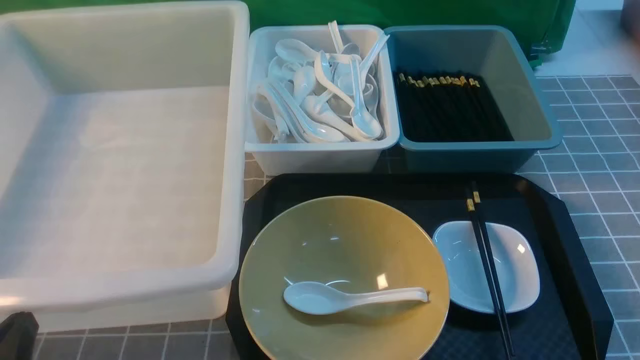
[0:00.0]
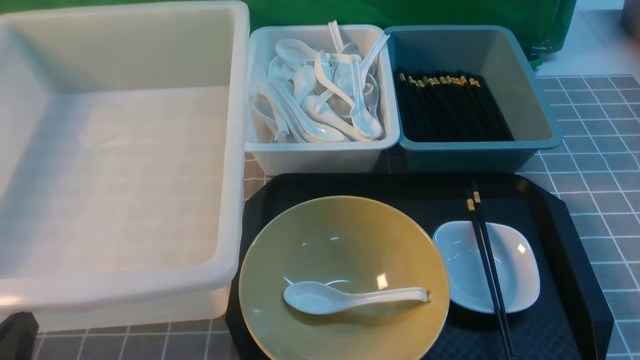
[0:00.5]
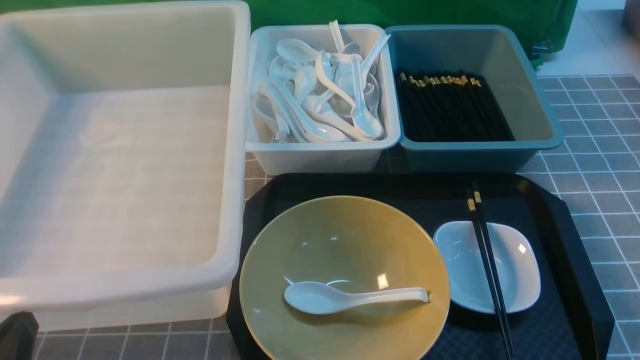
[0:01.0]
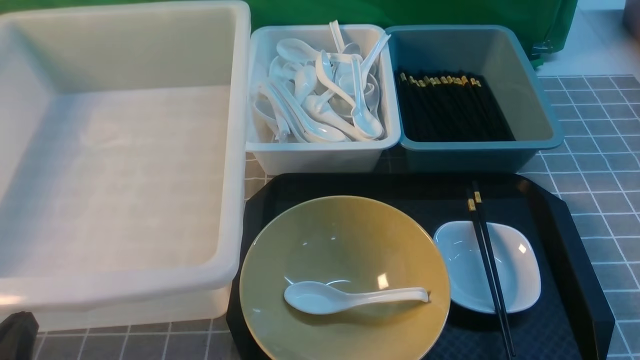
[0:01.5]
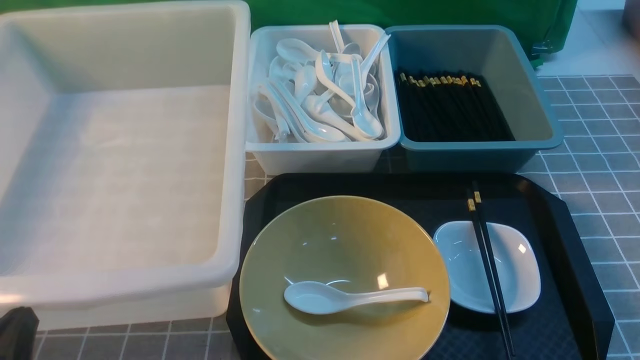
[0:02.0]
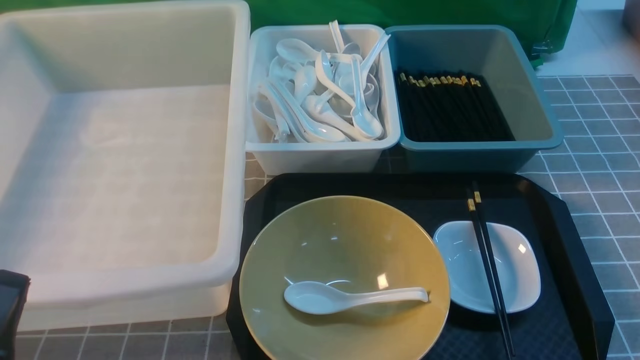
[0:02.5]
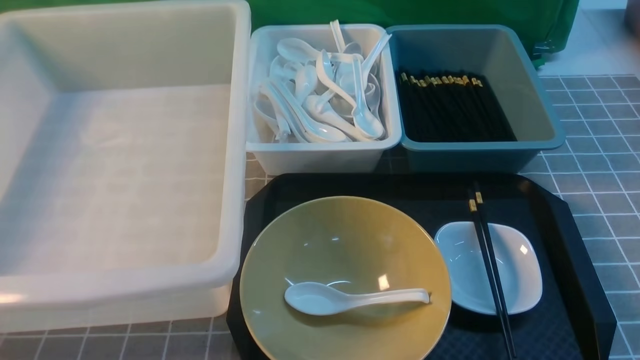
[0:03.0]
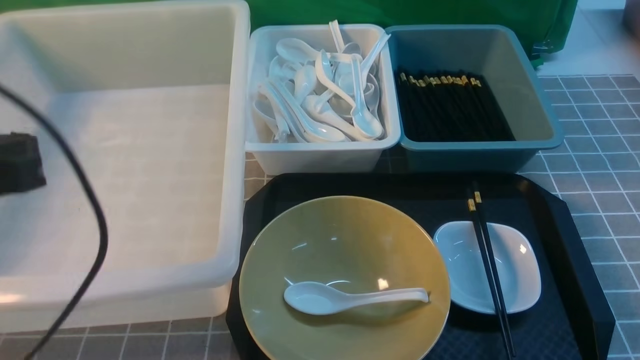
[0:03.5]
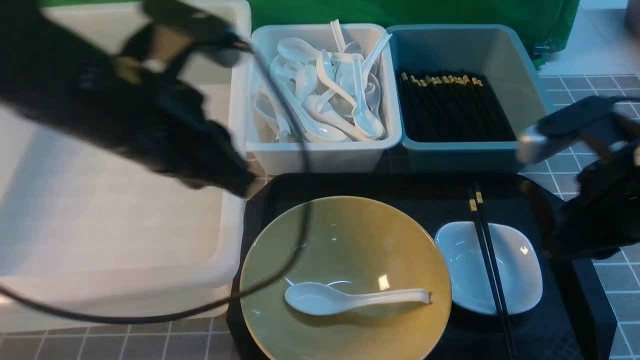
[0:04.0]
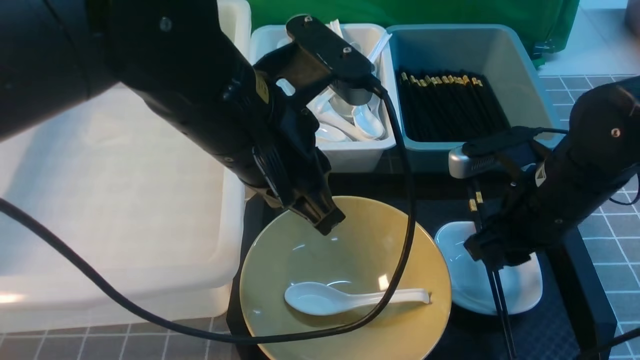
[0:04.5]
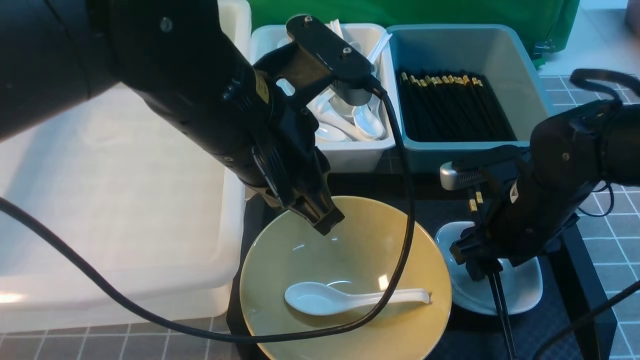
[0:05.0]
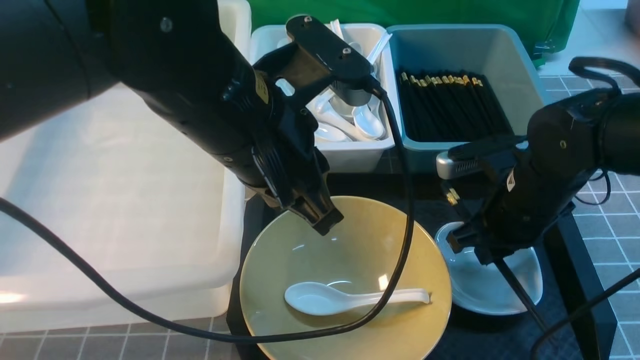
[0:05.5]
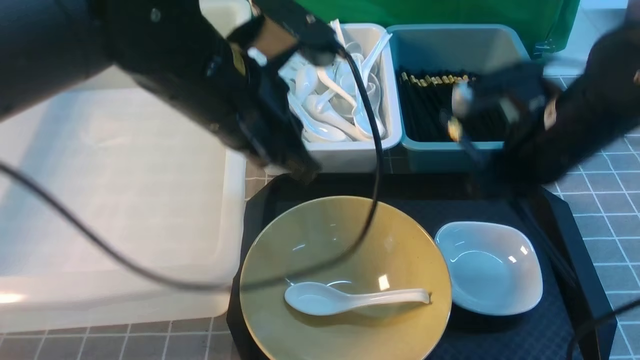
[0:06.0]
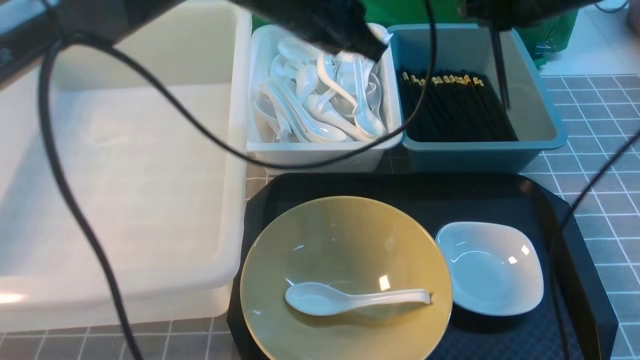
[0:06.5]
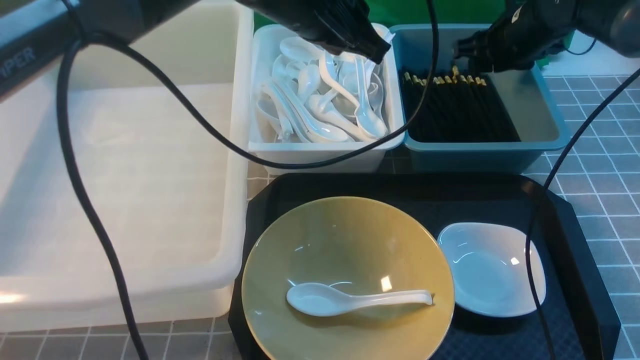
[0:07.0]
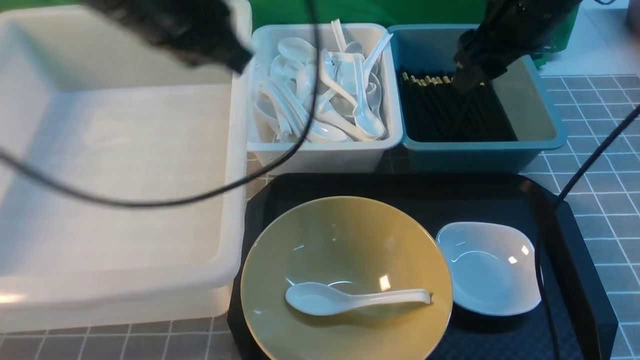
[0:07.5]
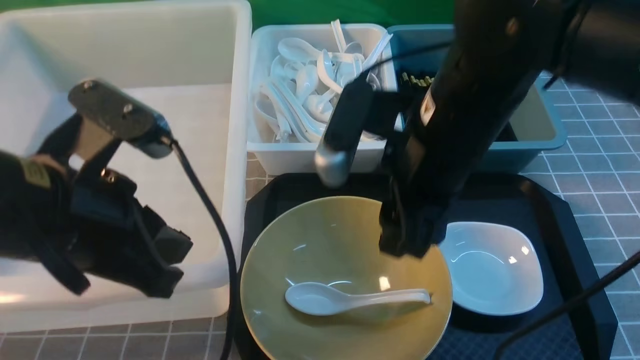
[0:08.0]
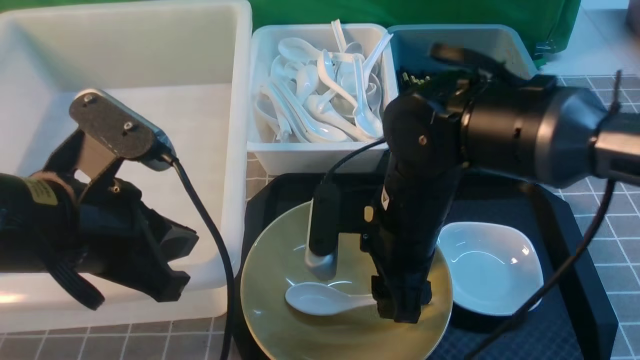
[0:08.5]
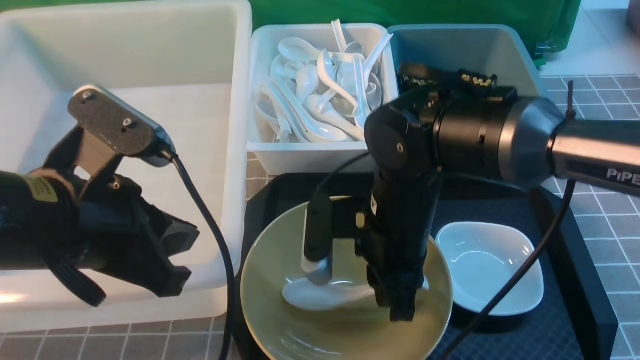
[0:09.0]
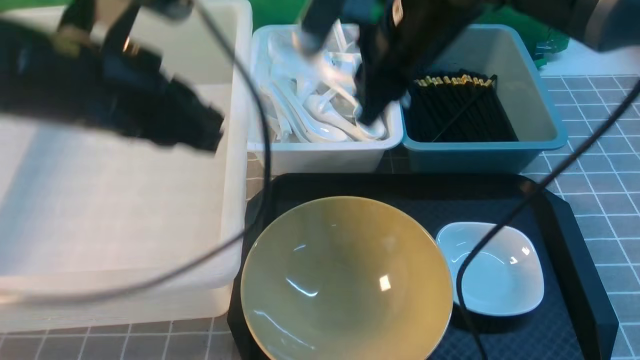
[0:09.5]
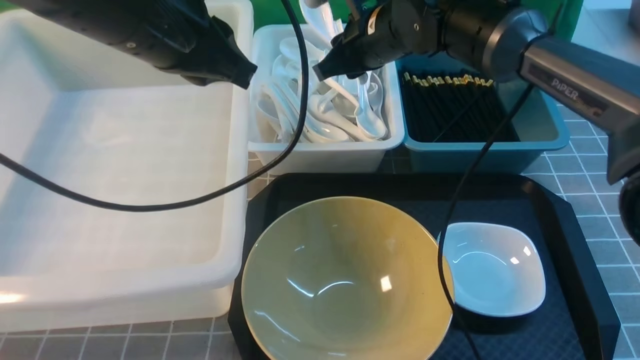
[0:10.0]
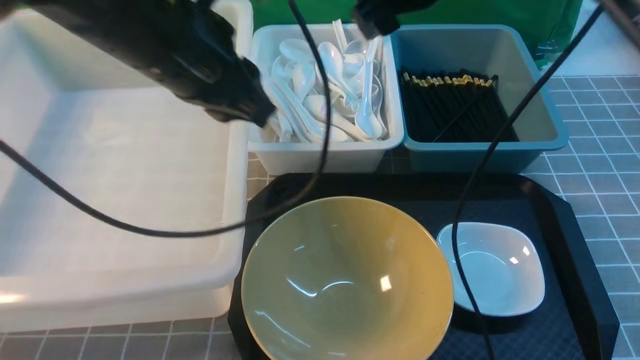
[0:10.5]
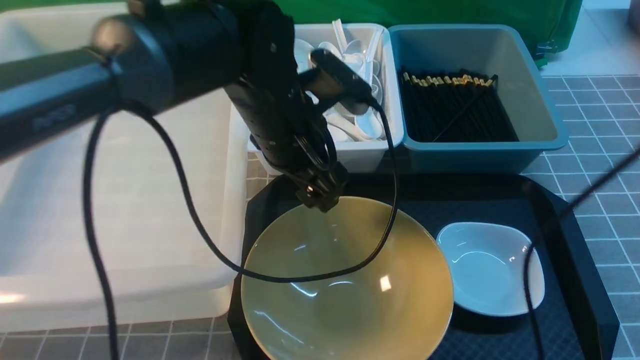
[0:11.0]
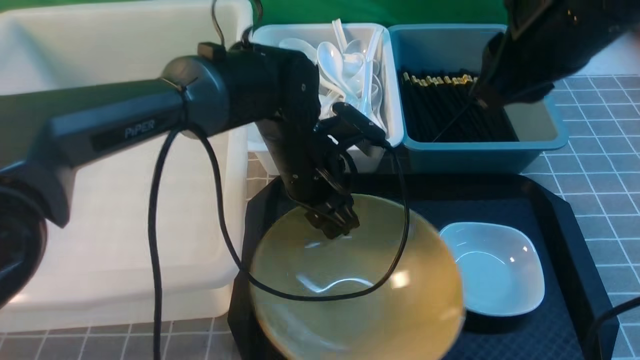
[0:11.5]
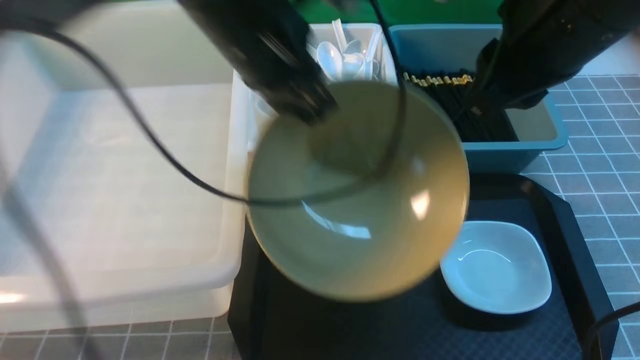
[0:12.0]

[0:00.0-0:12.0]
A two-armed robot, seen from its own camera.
Task of the whole recording: on grey table put chopsticks spoon bowls plates into blue grey white boxes.
Step, 0:00.0 to 0:05.5: use the right arm to grab the chopsticks.
Step, 0:06.0 to 0:07.0: use the right arm to put the chopsticks into the small storage box on the right.
Step, 0:07.5 to 0:09.0: use the right arm to grab the soup spoon in the middle.
Step, 0:09.5 to 0:10.0: use the right arm to put the soup spoon into the small storage box in the middle.
Step, 0:10.5 to 0:11.5: use the left arm to grab the yellow noodle bowl on the left.
0:02.0 to 0:04.0: The left gripper heads forward, upward and to the right, covering approximately 30 cm, while the right gripper moves forward, upward and to the left, roughly 25 cm, and closes up.
0:04.0 to 0:06.0: The left gripper travels to the right by roughly 5 cm, while the right gripper travels forward by some 10 cm, travels downward and back again, approximately 10 cm each way, and opens, then closes again.
0:06.0 to 0:08.0: The right gripper travels to the left by approximately 10 cm, goes forward and returns, about 15 cm each way, and opens its fingers. The left gripper moves to the left and backward, some 15 cm.
0:08.0 to 0:10.0: The right gripper moves forward, approximately 20 cm, and closes, then opens again. Meanwhile the left gripper heads forward and upward, covering about 15 cm.
0:10.0 to 0:12.0: The left gripper goes downward and returns, some 15 cm each way, and opens and closes again. Meanwhile the right gripper travels backward and upward by approximately 20 cm.

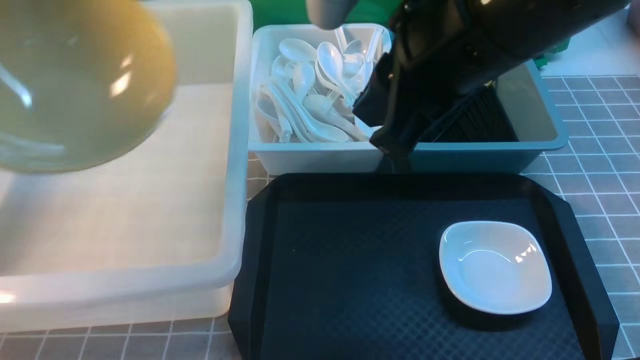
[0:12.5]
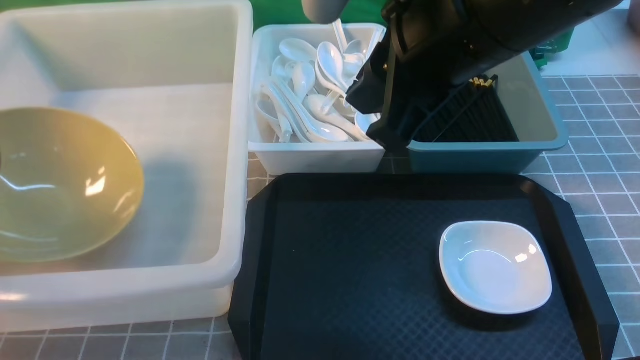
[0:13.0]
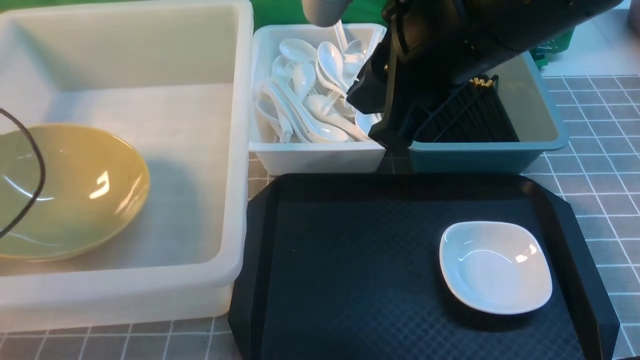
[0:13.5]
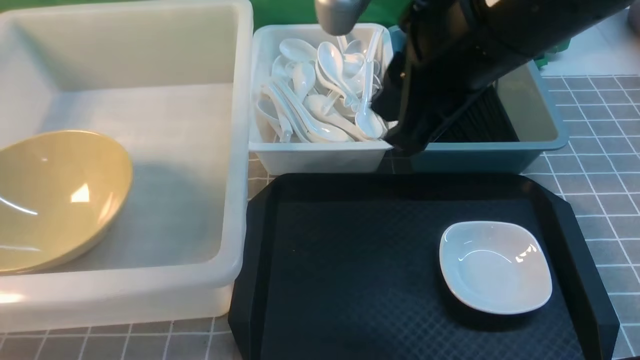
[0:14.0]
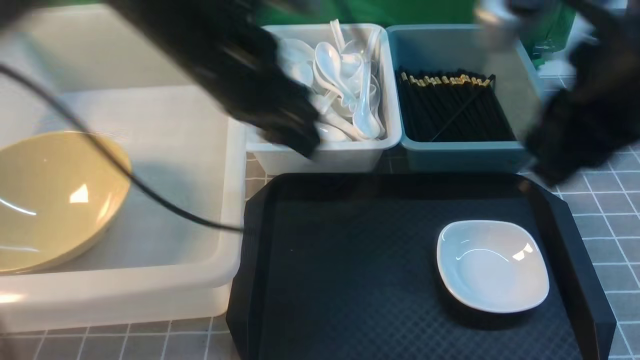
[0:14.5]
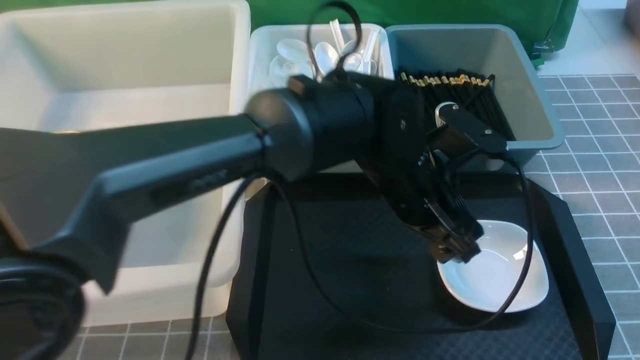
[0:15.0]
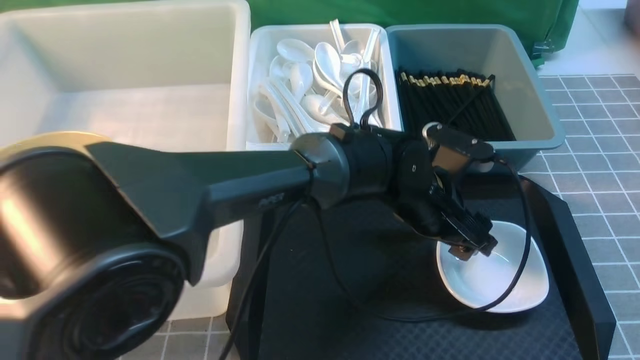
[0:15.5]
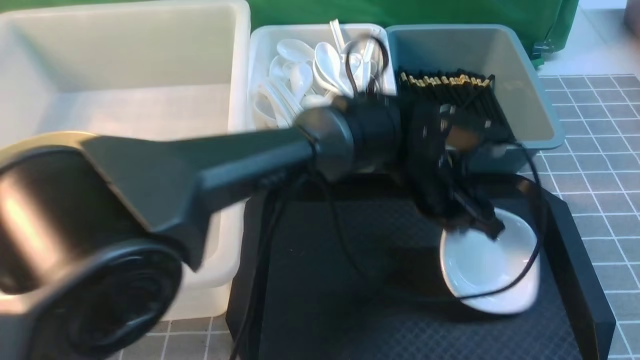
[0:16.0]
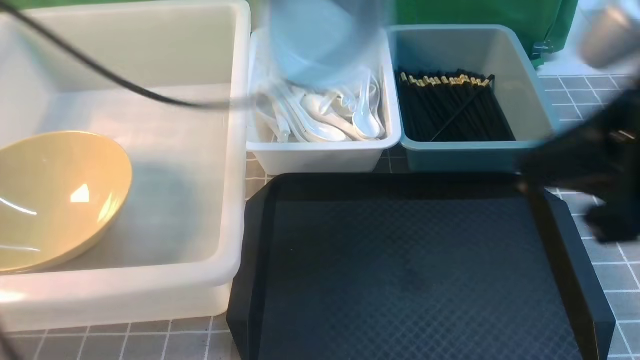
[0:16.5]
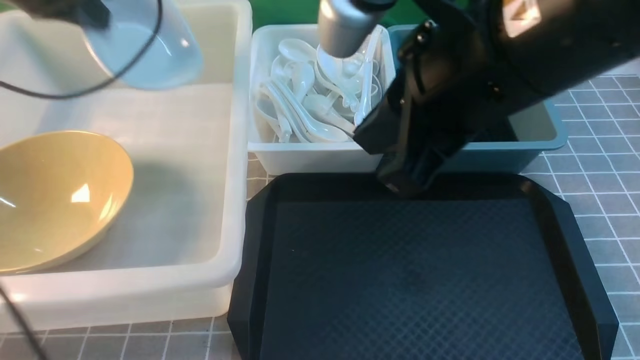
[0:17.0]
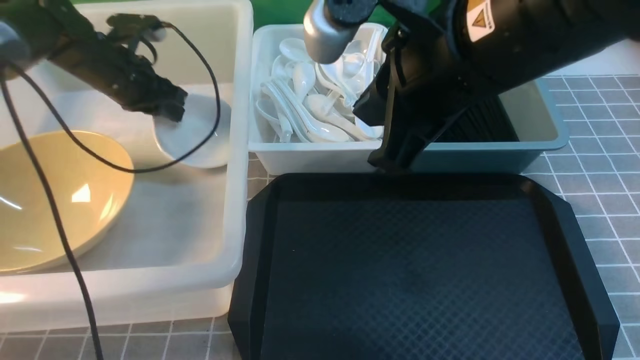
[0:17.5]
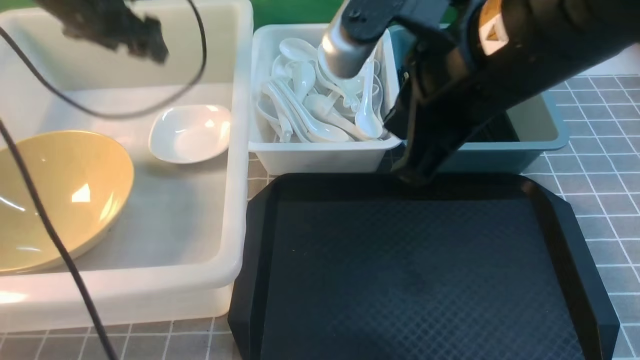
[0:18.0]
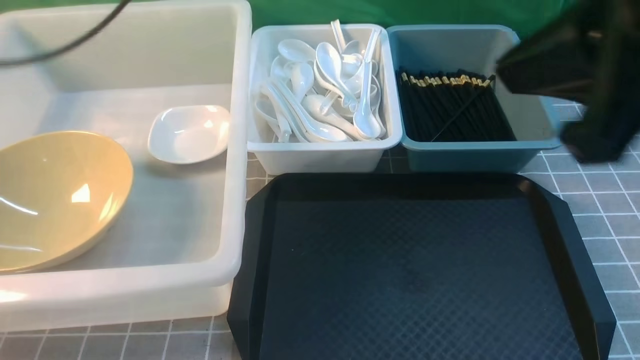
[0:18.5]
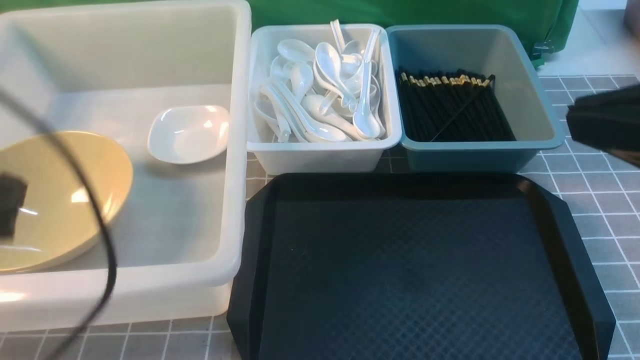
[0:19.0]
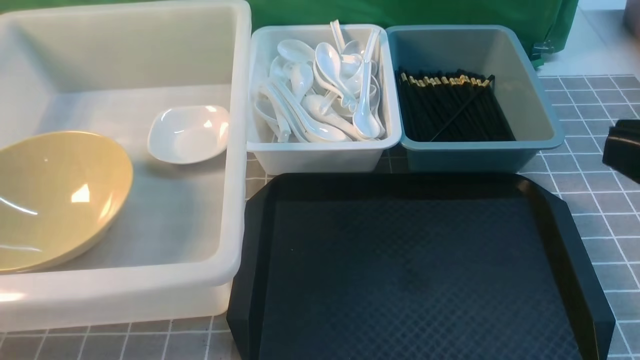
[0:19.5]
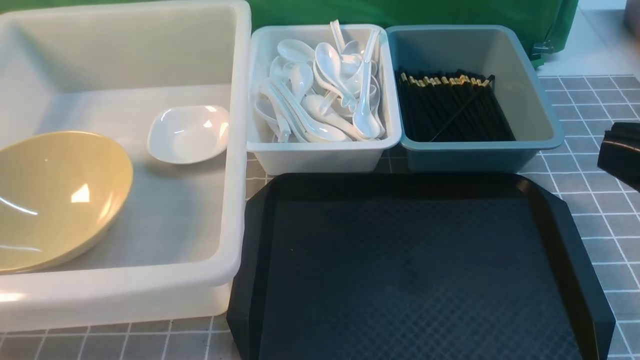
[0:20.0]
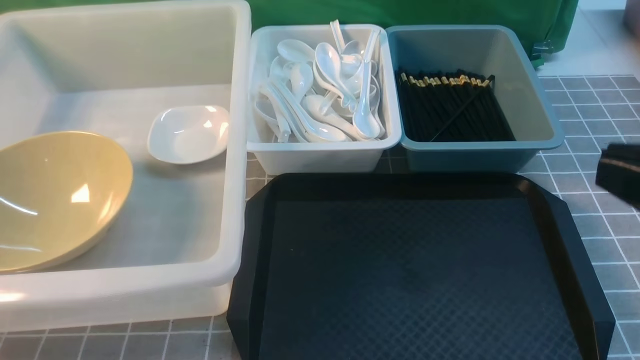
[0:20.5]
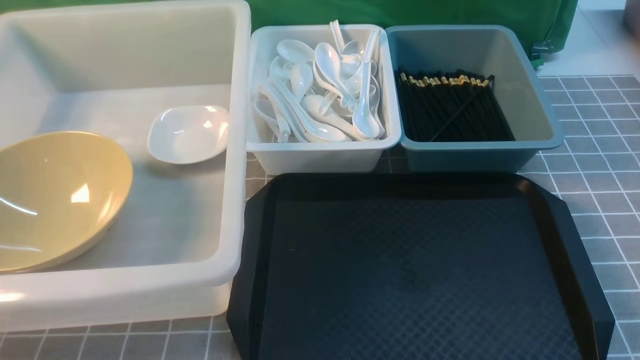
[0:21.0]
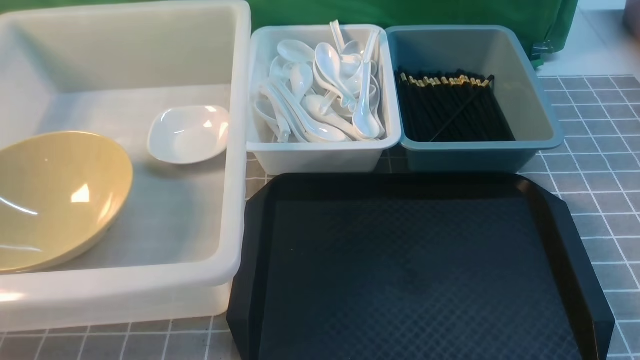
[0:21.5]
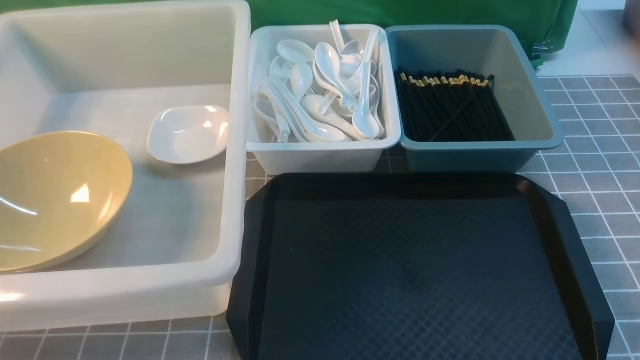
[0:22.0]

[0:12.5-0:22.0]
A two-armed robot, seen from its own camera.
Task of the whole recording: on grey table put chopsticks spoon bowls plates into blue grey white boxes.
Step, 0:12.5 to 0:13.5: use the left arm to put the noodle bowl into the large storage box on the left.
Step, 0:14.0 to 0:16.0: use the left arm to grab the plate.
Step, 0:16.5 to 0:17.5: use the left arm to put the plate into the large storage box on the left.
0:12.5 to 0:14.5: The left gripper travels to the right by approximately 30 cm, and opens up. The right gripper moves to the right, about 10 cm.
0:14.5 to 0:16.5: The left gripper goes approximately 5 cm to the left, travels downward and back again, approximately 15 cm each way, and closes its fingers; the right gripper moves about 10 cm backward and comes back, and closes its fingers.
0:16.5 to 0:18.0: The left gripper heads to the left, forward and downward, covering some 20 cm, and opens, while the right gripper moves to the left and forward, approximately 10 cm.
0:18.0 to 0:20.0: The left gripper shifts approximately 40 cm backward, and closes its fingers; the right gripper heads backward and to the right, covering about 20 cm.
0:20.0 to 0:22.0: The right gripper heads downward and to the right, covering roughly 20 cm.
